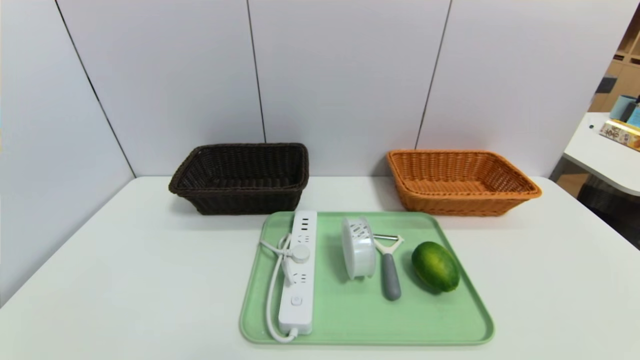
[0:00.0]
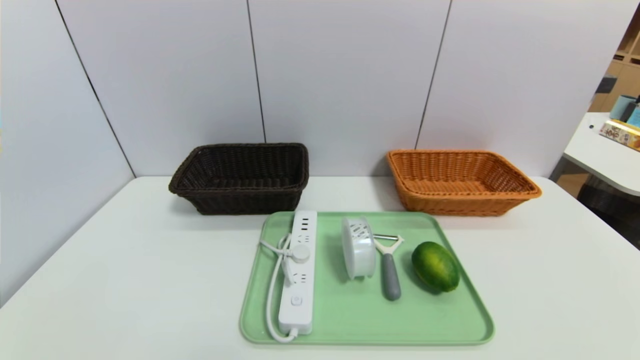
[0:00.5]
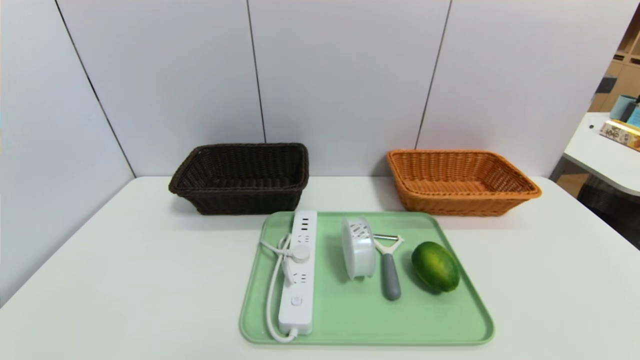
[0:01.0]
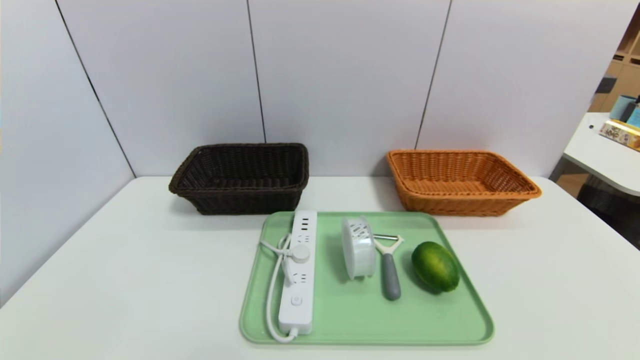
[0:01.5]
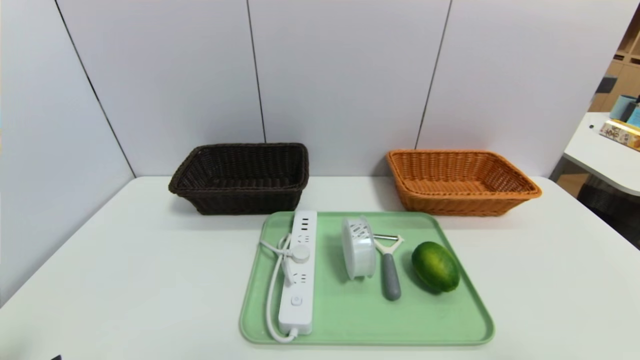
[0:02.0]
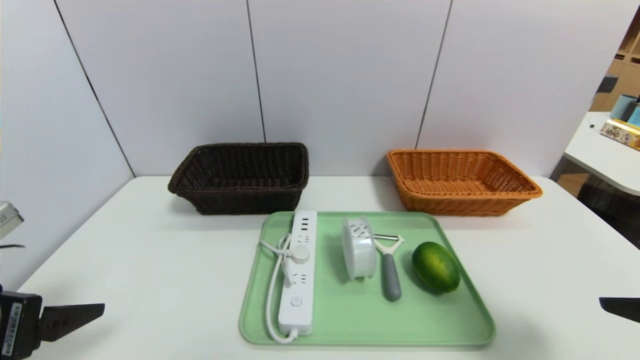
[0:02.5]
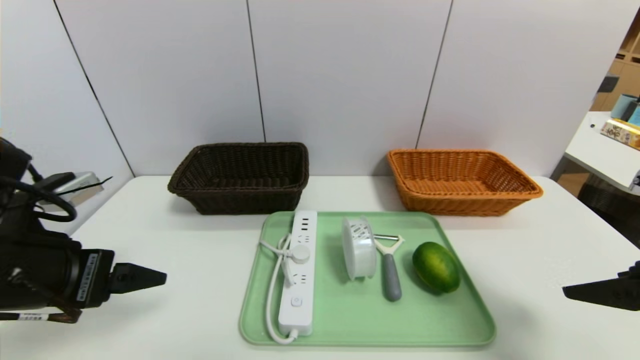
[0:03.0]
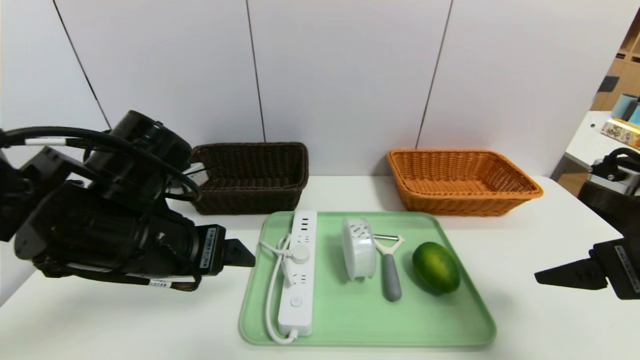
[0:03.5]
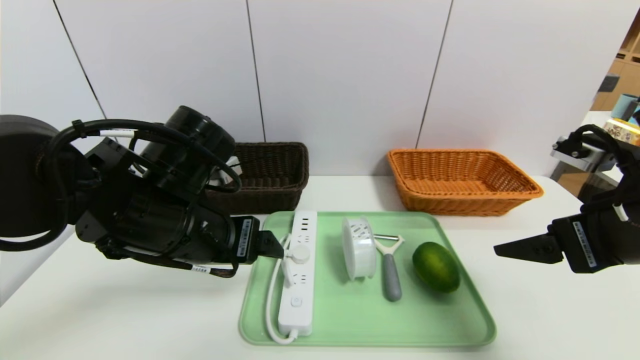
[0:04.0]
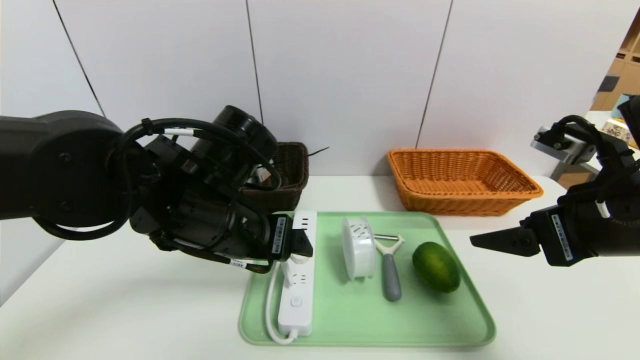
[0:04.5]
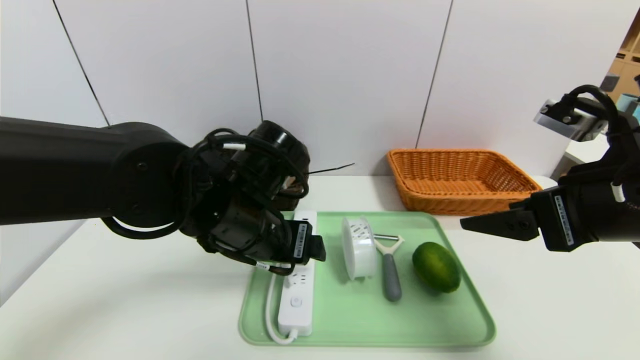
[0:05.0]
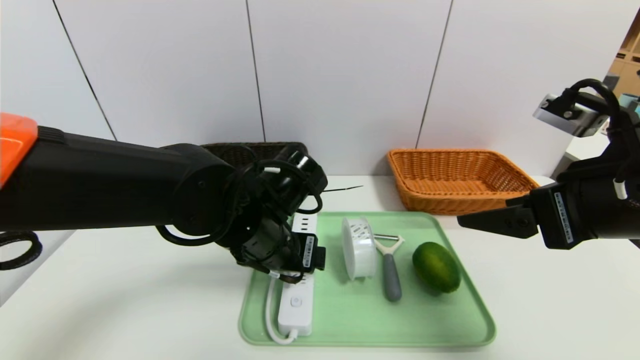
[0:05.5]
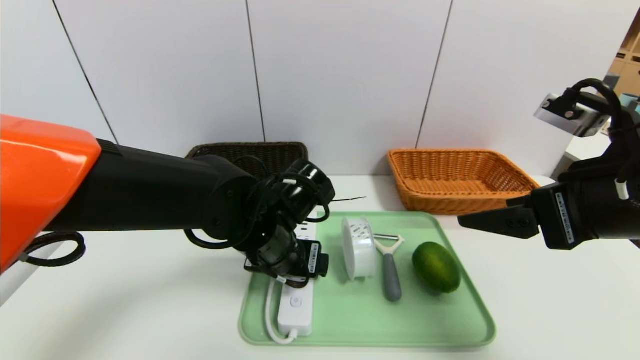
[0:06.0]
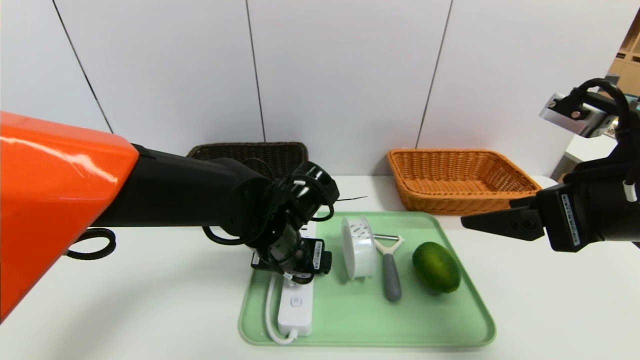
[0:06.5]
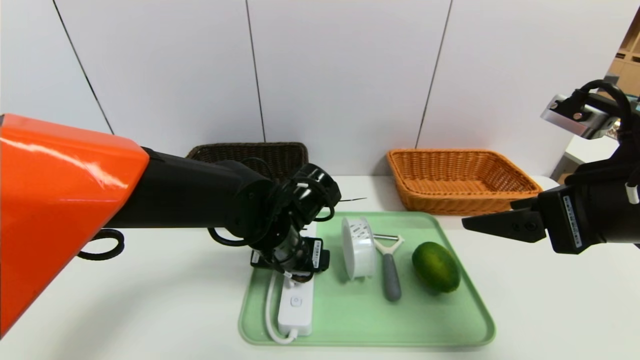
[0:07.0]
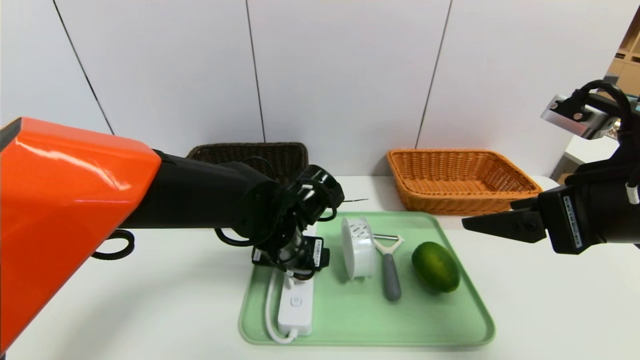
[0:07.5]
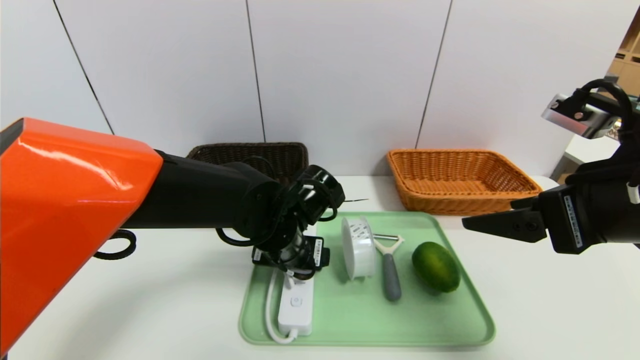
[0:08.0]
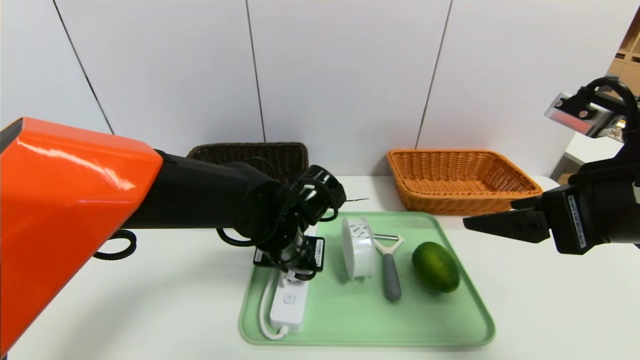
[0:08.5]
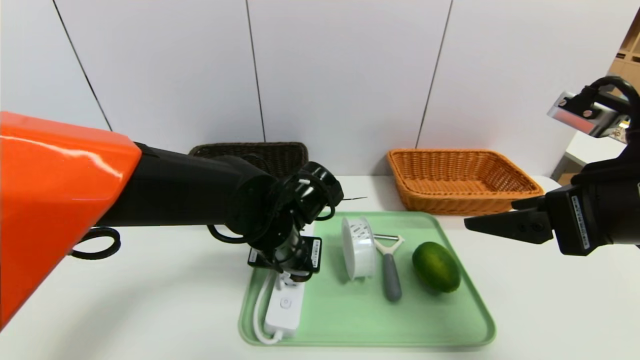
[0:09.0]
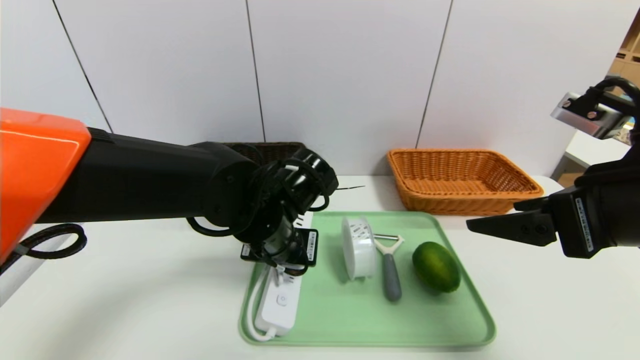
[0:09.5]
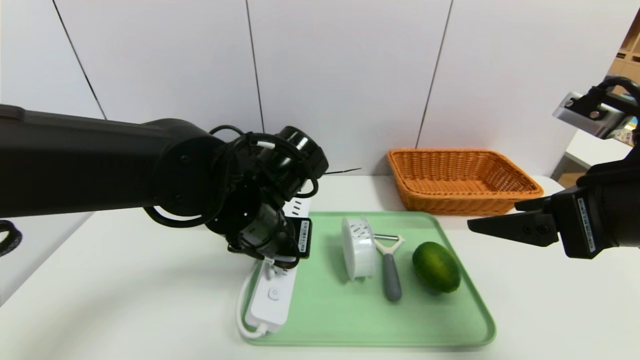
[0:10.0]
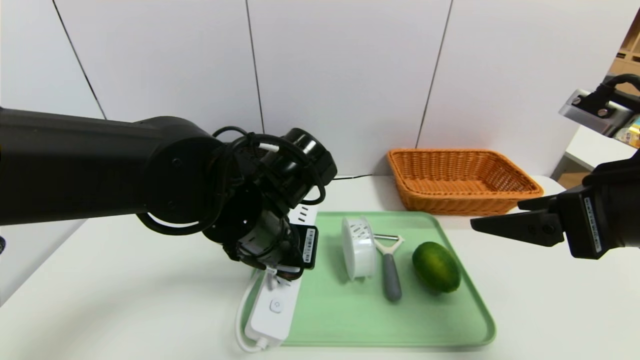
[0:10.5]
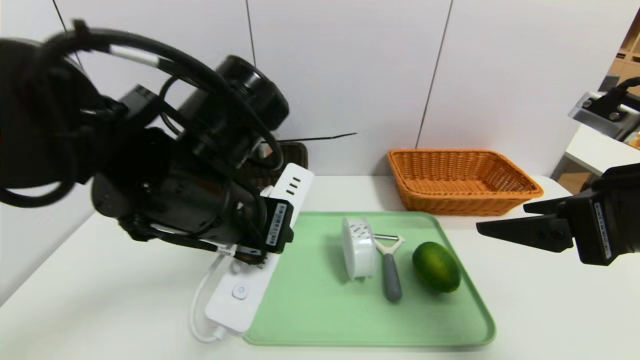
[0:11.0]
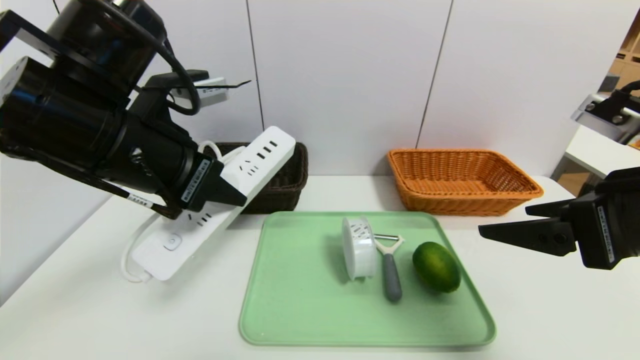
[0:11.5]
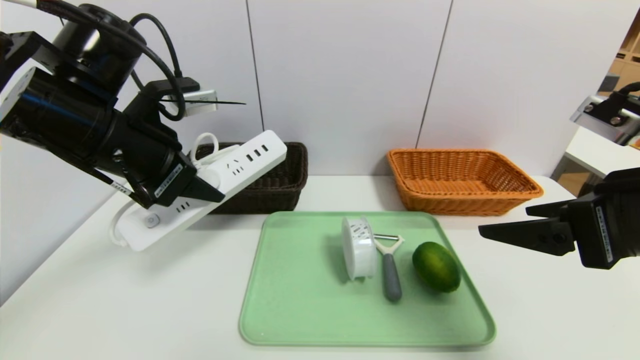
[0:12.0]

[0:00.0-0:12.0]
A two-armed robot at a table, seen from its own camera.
Task of the whole recording: place the food in the right basket with the right gripper, and place the non food items in the left basket with the left gripper.
0:02.0 to 0:04.0: The left gripper travels forward and to the right by approximately 25 cm. The right gripper heads forward, covering roughly 15 cm.
0:04.0 to 0:06.0: The left gripper heads to the right and downward, covering about 10 cm.
0:06.0 to 0:08.0: The grippers move only a little.
0:08.0 to 0:10.0: The left gripper travels upward by roughly 5 cm, and closes.
0:10.0 to 0:12.0: The left gripper shifts some 15 cm to the left and upward.

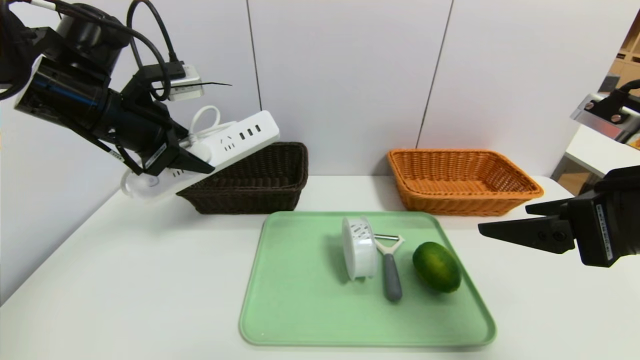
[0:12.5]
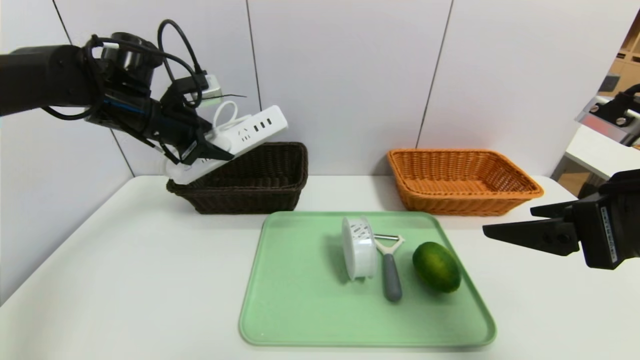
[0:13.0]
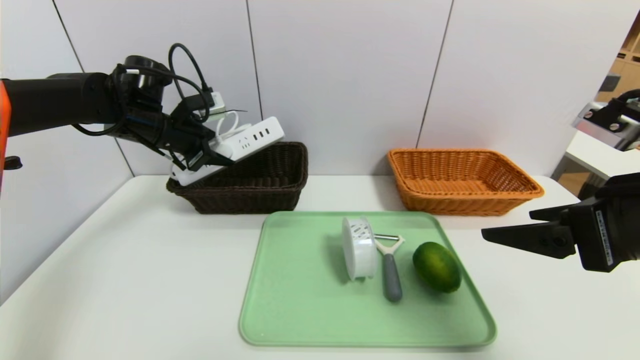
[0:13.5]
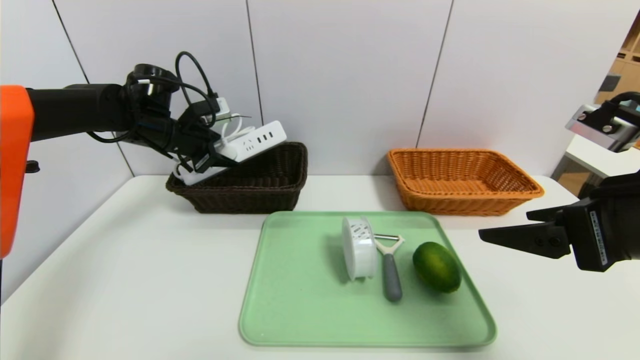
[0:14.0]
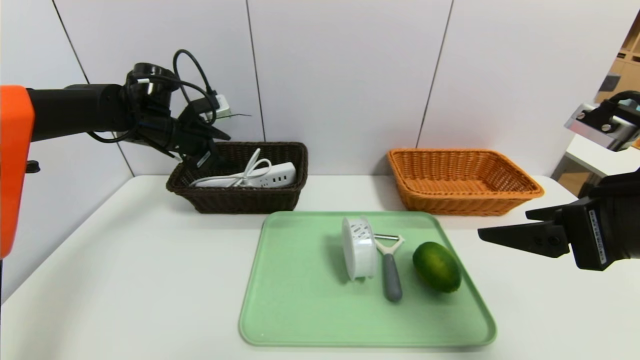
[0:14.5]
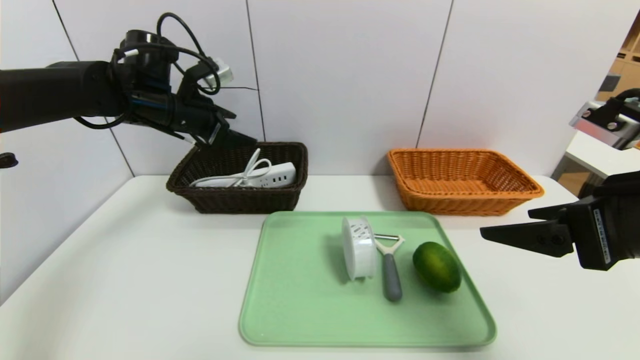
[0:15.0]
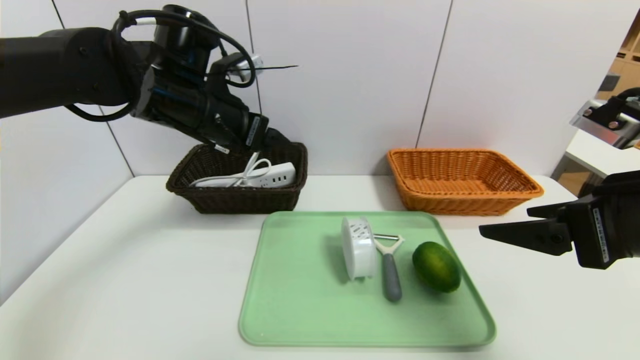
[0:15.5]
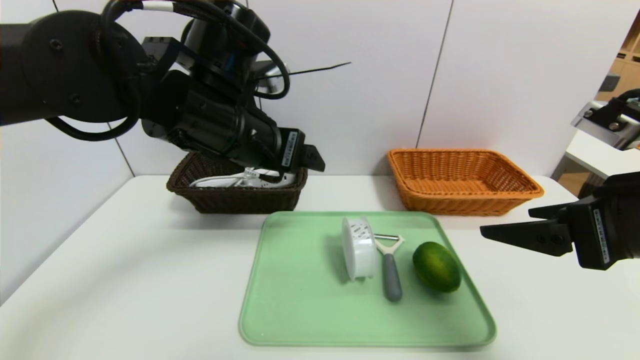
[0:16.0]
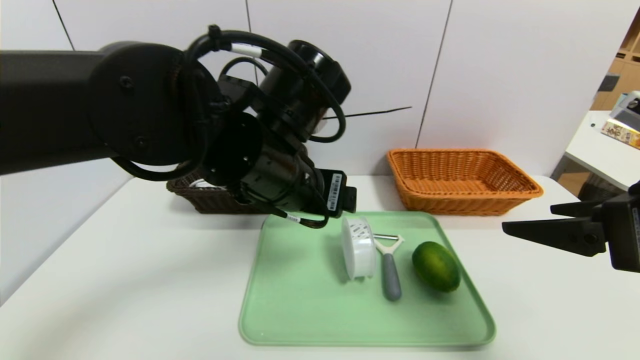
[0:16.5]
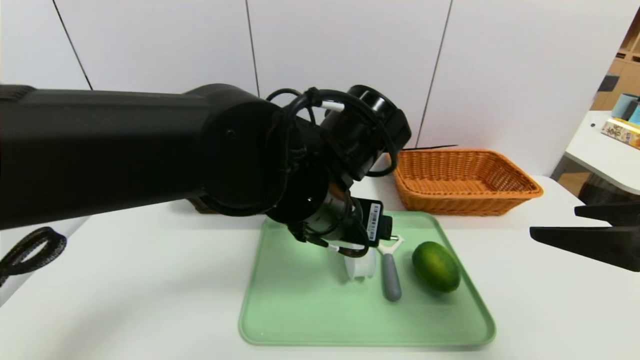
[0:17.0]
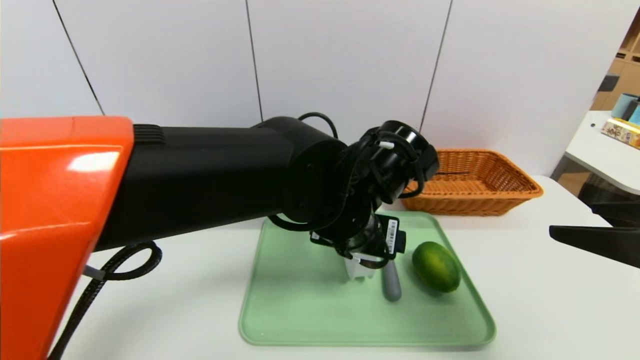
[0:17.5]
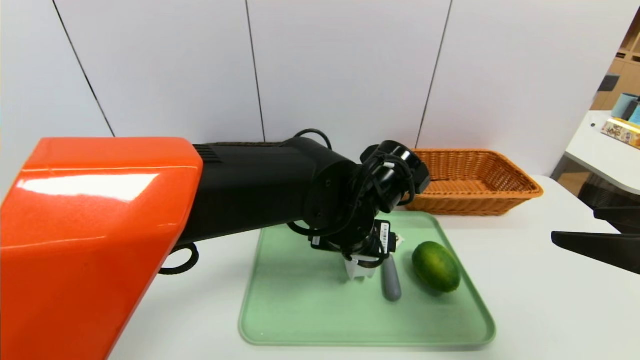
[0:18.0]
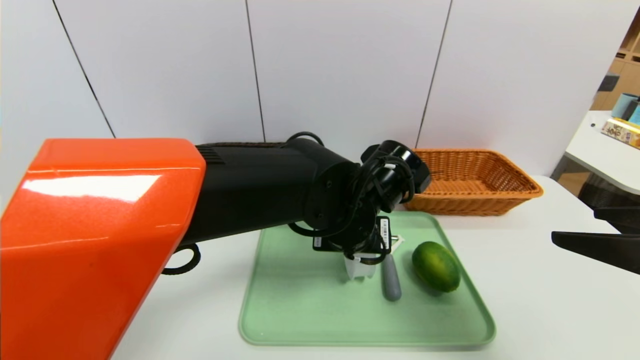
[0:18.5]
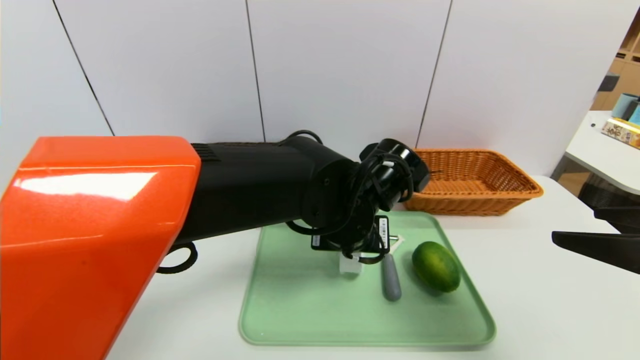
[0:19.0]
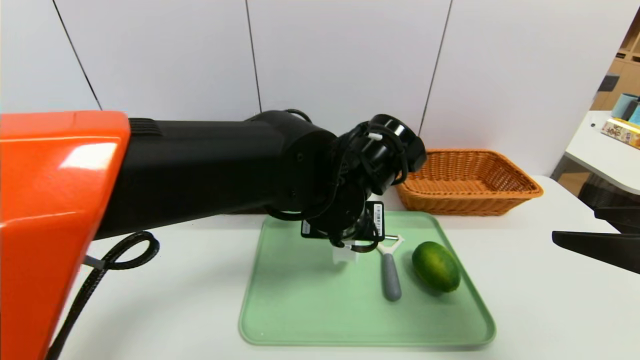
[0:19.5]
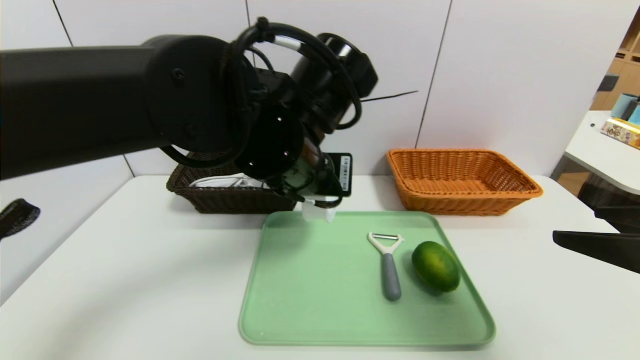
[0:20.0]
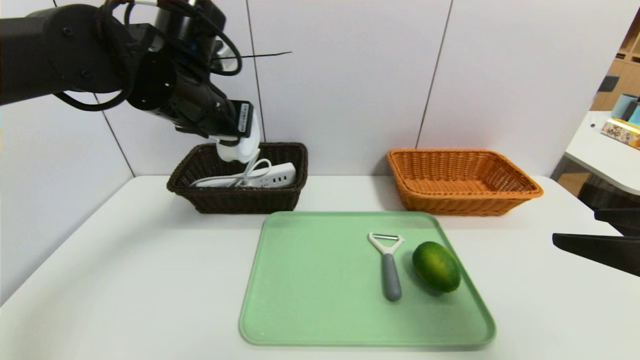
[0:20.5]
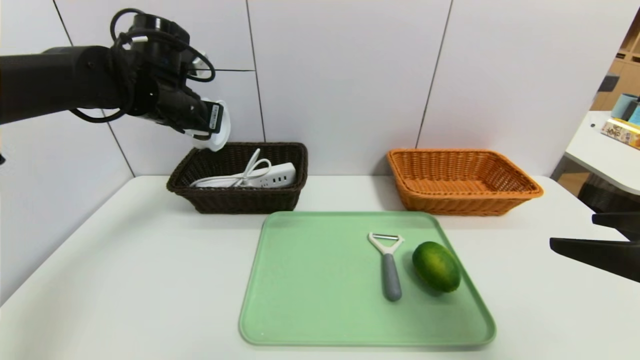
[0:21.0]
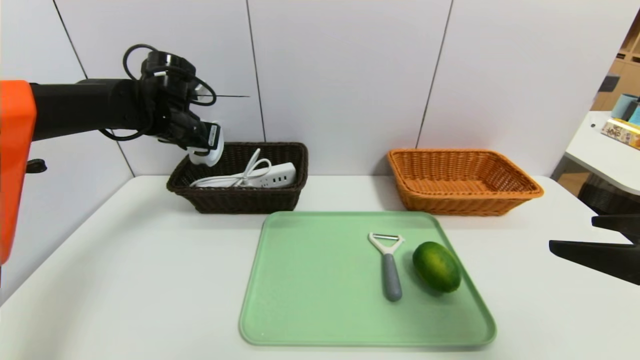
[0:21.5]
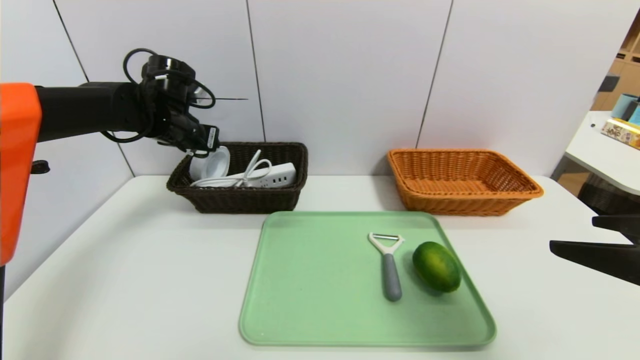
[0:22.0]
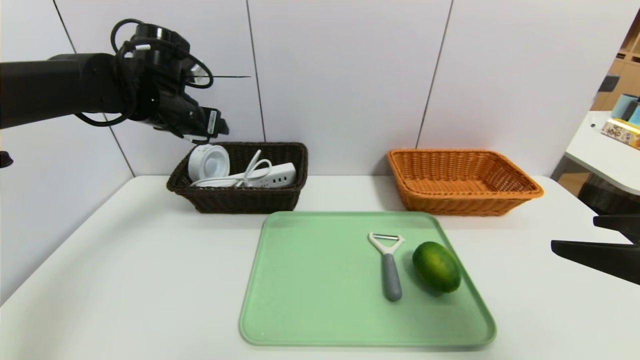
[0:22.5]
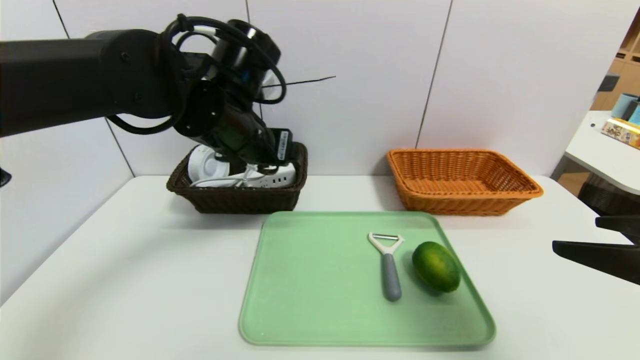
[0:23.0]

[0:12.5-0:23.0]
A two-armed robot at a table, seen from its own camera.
Task of the whole recording: place the food in the right basket with the right gripper, and place the non food items in the left basket with the left gripper.
Step, 0:12.5 to 0:14.5: Grasp the power strip and put it in the left basket.
Step, 0:15.0 to 0:22.0: Grasp the tape and put it in the left basket.
0:12.5 to 0:14.5: The left gripper moves forward and downward, some 15 cm.
0:14.5 to 0:16.5: The left gripper moves to the right and backward, some 30 cm.
0:16.5 to 0:19.0: The left gripper is displaced downward and to the right by approximately 10 cm, and closes its fingers.
0:19.0 to 0:21.0: The left gripper shifts some 30 cm to the left, forward and upward.
0:21.0 to 0:23.0: The left gripper is displaced to the right and backward by some 15 cm, and opens its fingers.
